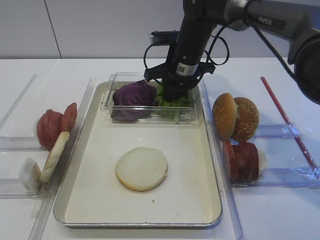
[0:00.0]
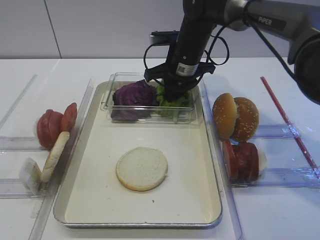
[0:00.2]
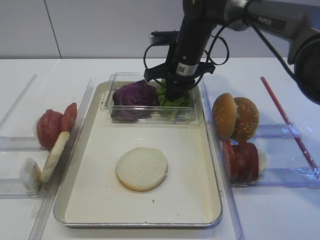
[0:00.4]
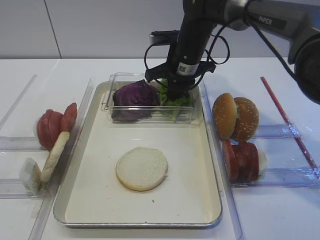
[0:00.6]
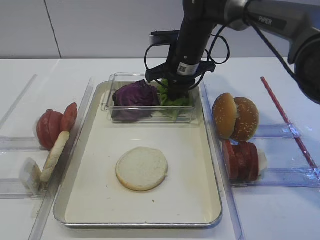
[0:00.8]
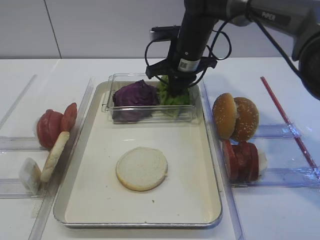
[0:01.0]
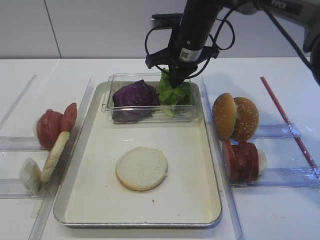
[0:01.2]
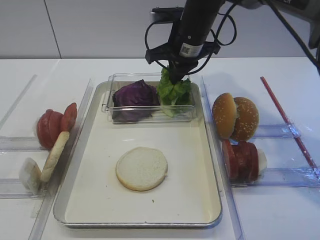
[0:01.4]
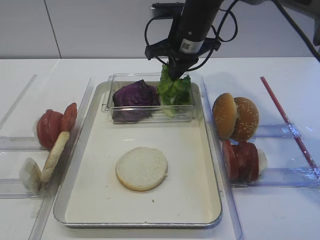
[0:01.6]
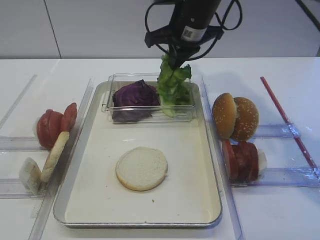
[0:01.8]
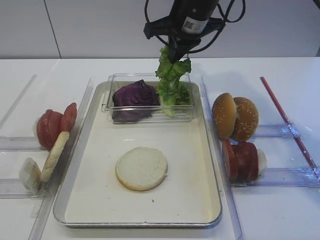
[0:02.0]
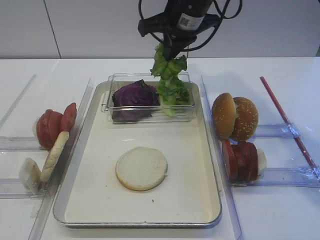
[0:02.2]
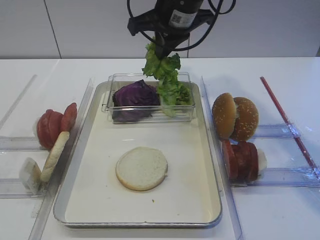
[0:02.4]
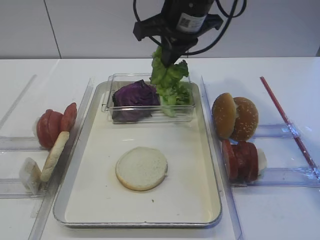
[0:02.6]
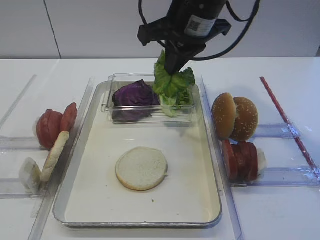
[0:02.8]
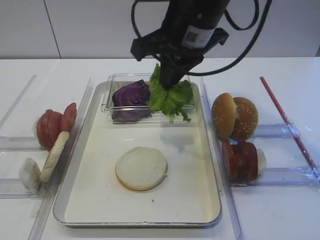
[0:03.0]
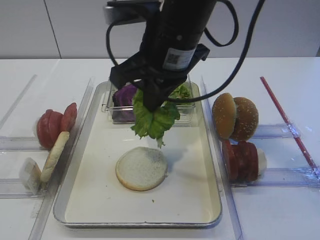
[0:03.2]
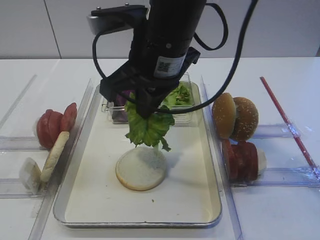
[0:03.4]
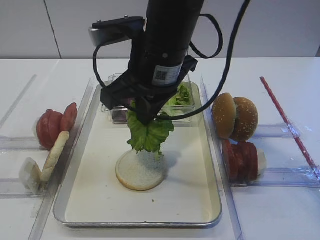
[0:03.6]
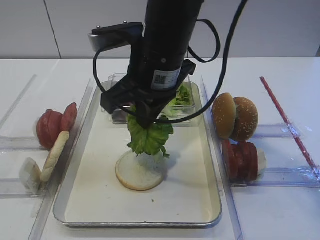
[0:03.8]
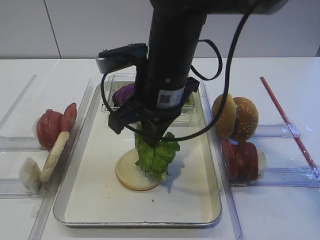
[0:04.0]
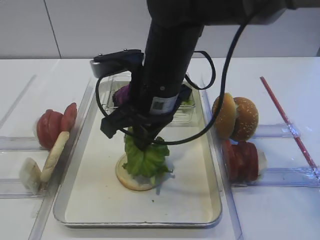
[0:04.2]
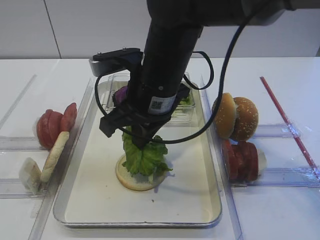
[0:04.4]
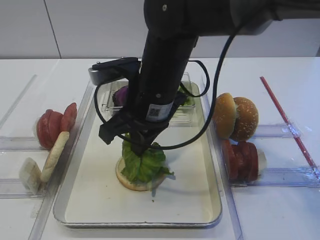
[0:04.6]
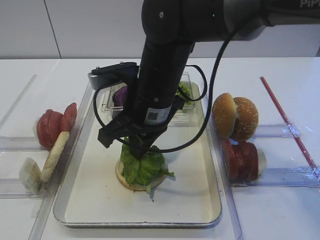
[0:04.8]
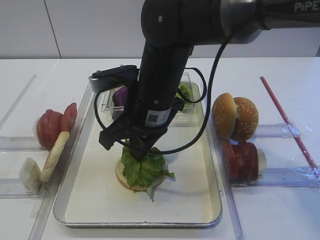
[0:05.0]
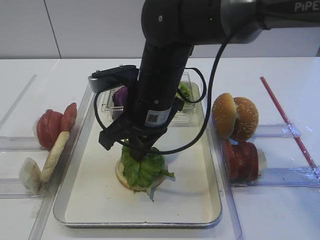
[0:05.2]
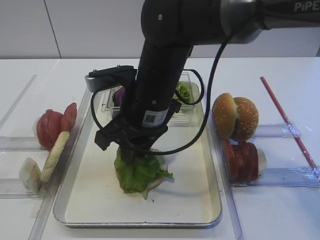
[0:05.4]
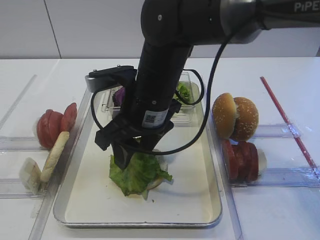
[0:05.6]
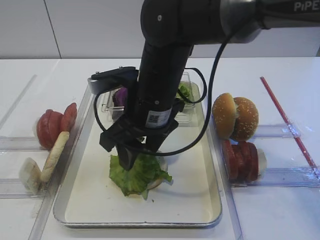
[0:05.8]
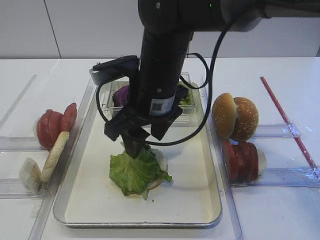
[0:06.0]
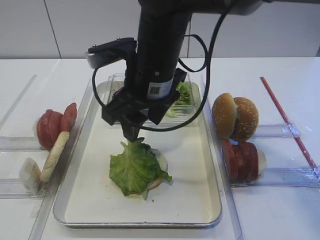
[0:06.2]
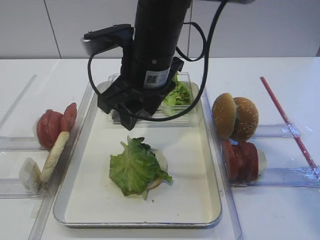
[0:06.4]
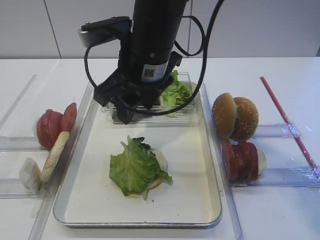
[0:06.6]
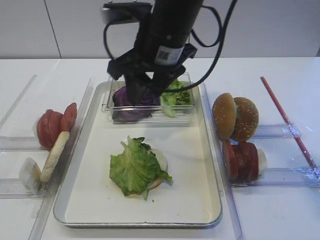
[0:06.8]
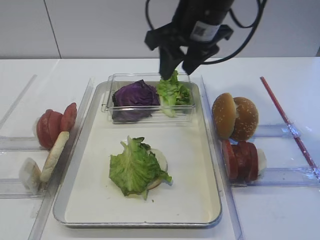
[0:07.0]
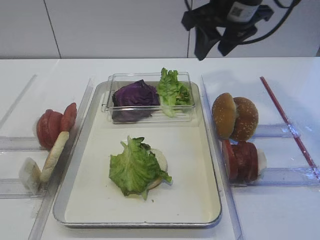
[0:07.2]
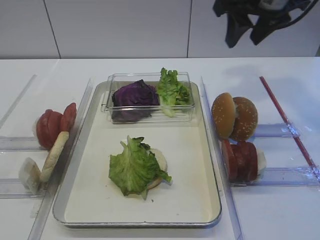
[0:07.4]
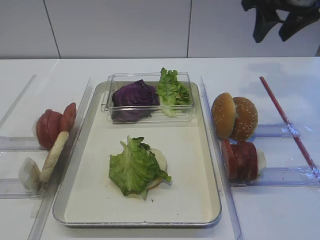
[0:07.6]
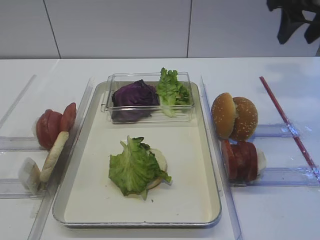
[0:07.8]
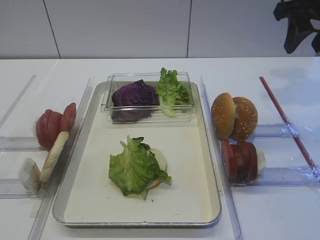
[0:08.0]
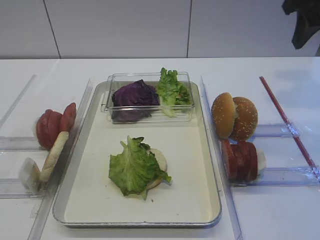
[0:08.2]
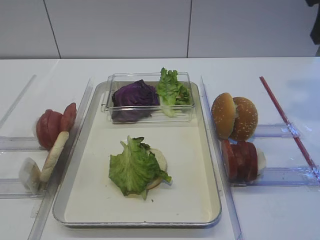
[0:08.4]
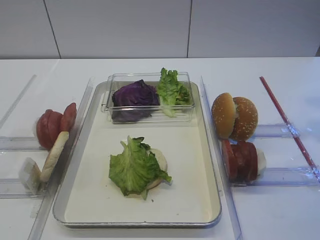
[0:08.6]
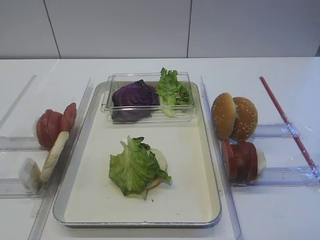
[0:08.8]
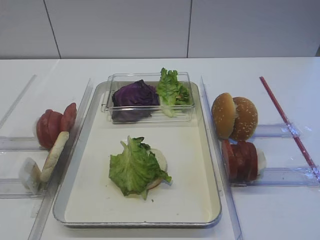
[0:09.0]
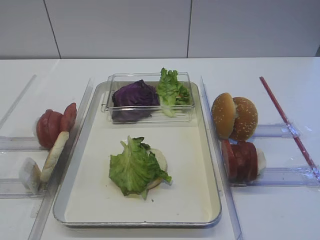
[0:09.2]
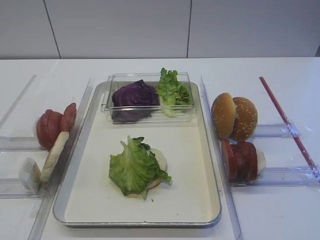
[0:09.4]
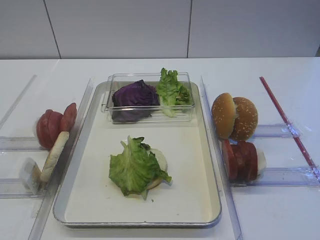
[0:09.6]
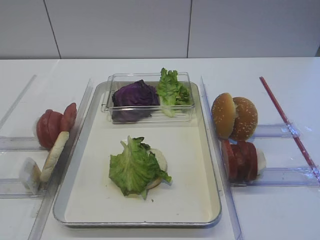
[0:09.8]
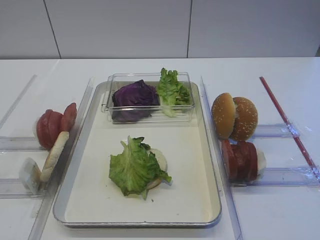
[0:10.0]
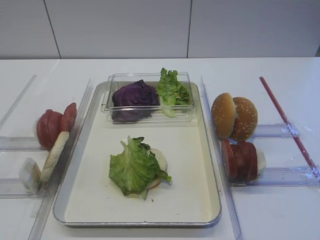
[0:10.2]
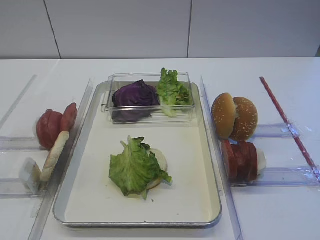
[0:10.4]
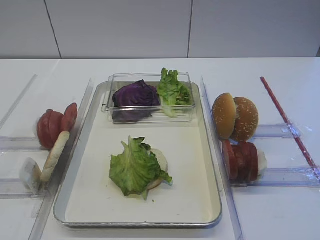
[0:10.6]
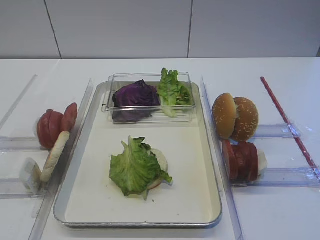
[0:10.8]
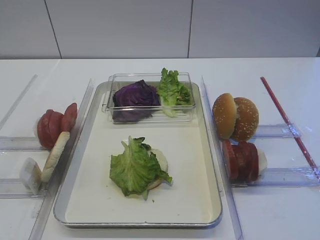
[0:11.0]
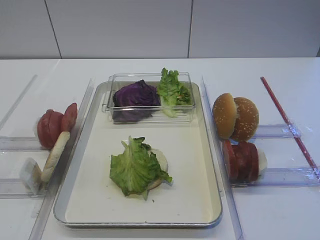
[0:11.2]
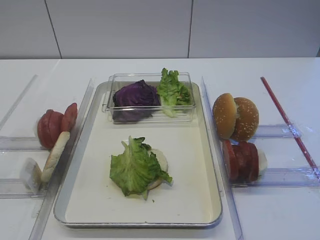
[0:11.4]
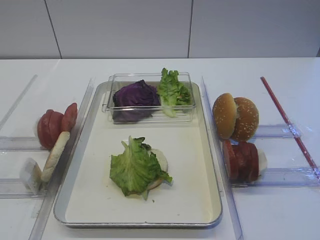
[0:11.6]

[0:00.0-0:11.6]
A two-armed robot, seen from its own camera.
Step, 0:01.8 to 0:06.6: Place the lettuce leaf on the bread slice with the right gripper.
0:00.0 to 0:01.4: The right gripper closes its fingers.
0:01.4 to 0:02.8: The right gripper travels backward and upward by some 10 cm.
0:02.8 to 0:04.4: The right gripper goes approximately 10 cm downward, backward and to the left.
0:04.4 to 0:05.8: The right gripper opens.
0:05.8 to 0:07.2: The right gripper heads to the right, upward and forward, covering about 20 cm.
0:07.2 to 0:08.8: The right gripper goes some 25 cm backward and to the right.
0:10.2 to 0:11.6: The grippers make only small movements.

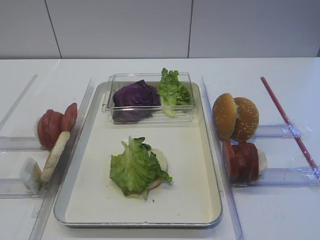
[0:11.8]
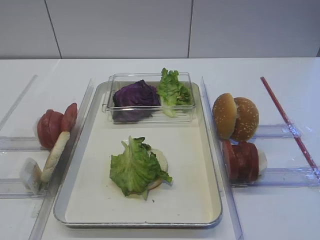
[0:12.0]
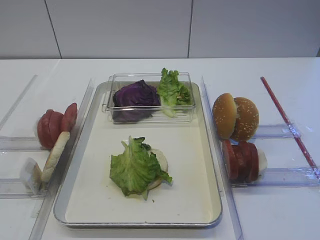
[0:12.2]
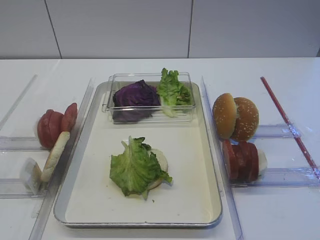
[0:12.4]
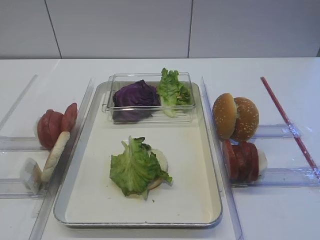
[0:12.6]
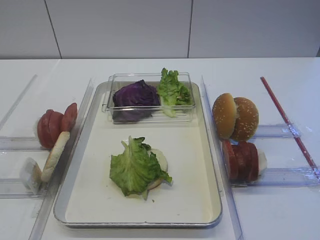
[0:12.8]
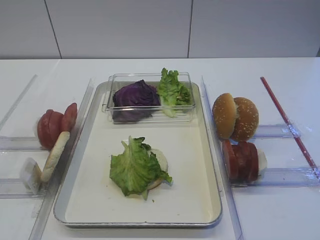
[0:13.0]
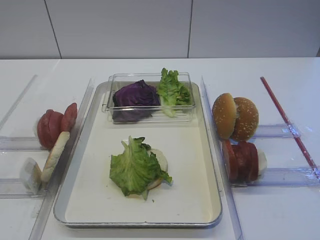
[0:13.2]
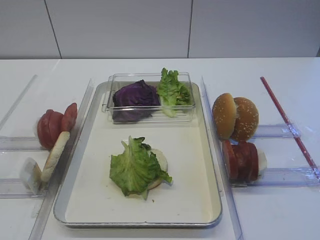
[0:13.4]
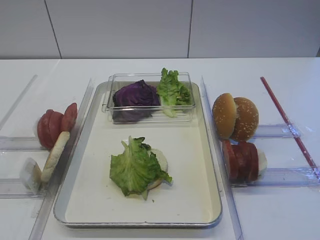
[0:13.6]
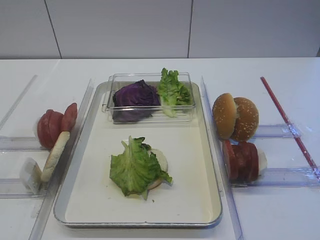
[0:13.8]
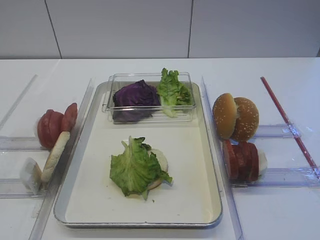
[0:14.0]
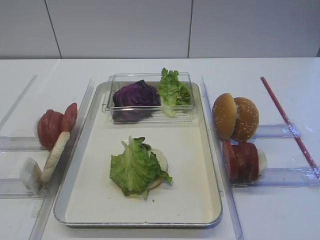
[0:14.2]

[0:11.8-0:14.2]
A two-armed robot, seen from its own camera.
0:11.8 to 0:14.2: The two grippers keep their place.

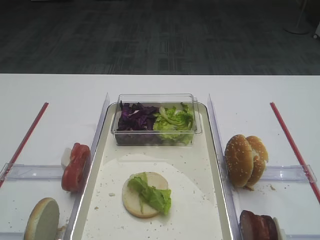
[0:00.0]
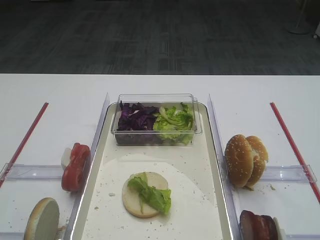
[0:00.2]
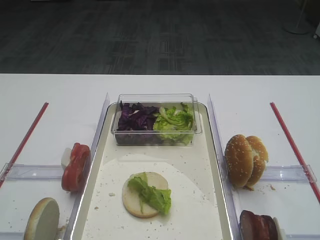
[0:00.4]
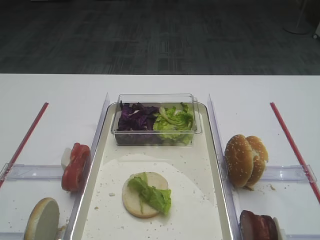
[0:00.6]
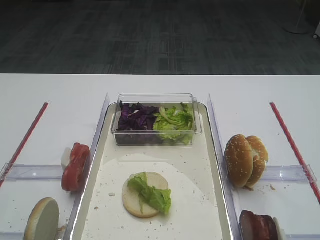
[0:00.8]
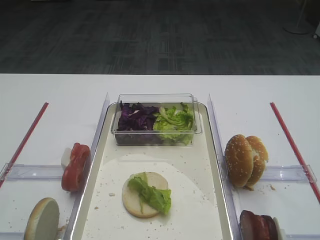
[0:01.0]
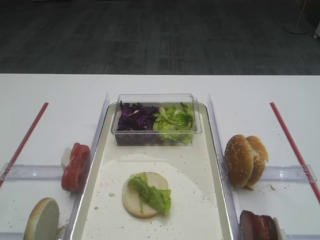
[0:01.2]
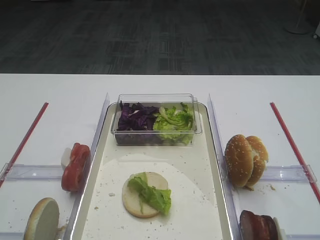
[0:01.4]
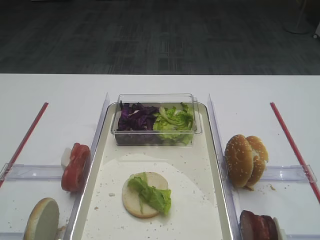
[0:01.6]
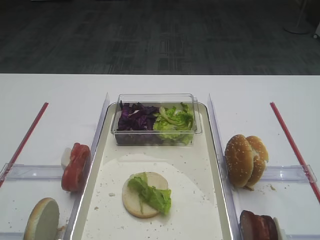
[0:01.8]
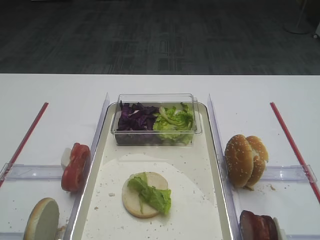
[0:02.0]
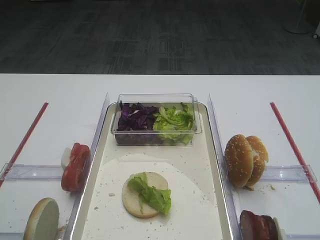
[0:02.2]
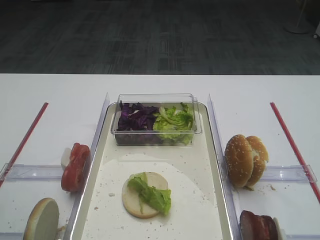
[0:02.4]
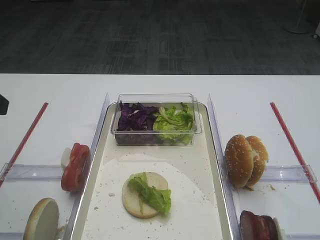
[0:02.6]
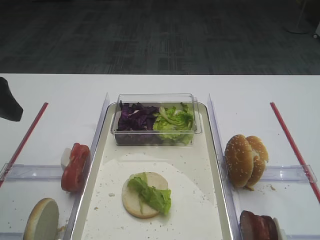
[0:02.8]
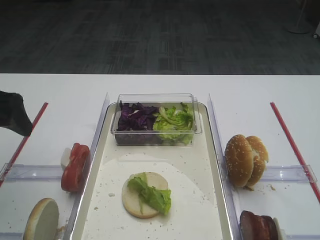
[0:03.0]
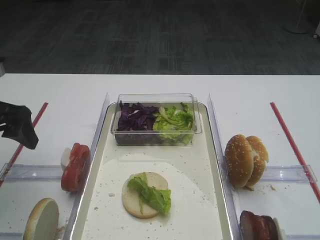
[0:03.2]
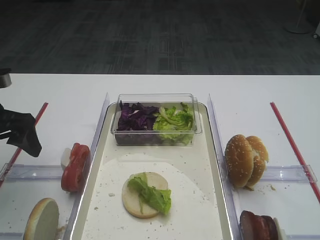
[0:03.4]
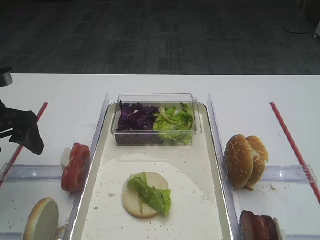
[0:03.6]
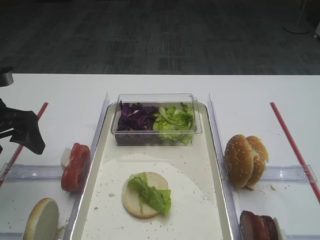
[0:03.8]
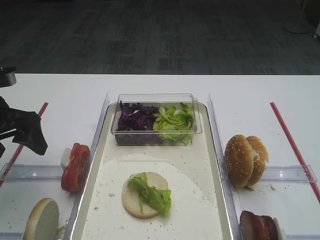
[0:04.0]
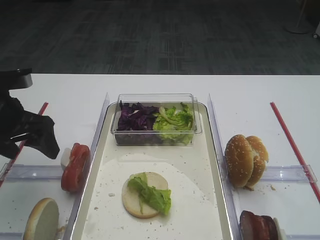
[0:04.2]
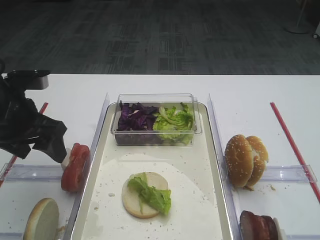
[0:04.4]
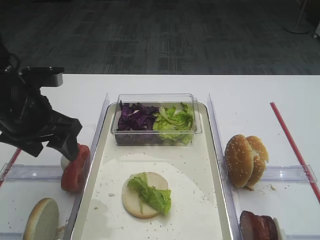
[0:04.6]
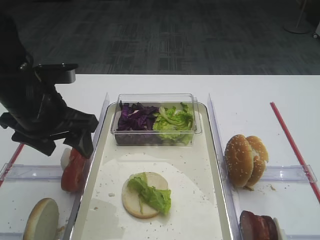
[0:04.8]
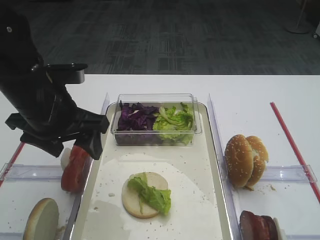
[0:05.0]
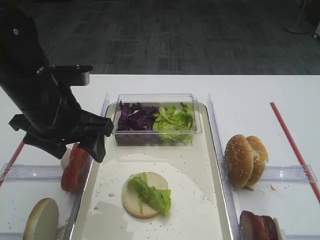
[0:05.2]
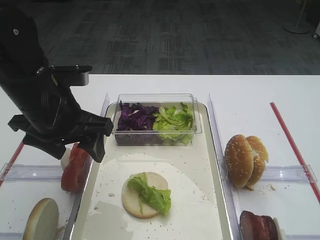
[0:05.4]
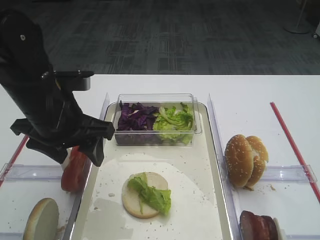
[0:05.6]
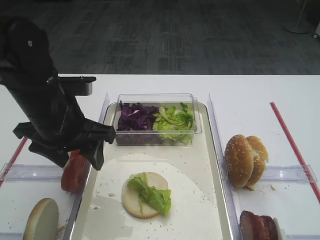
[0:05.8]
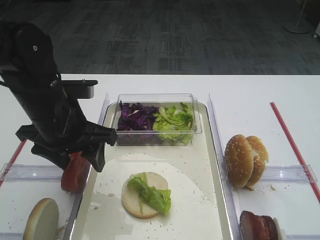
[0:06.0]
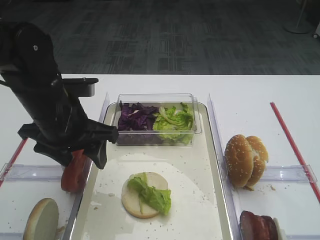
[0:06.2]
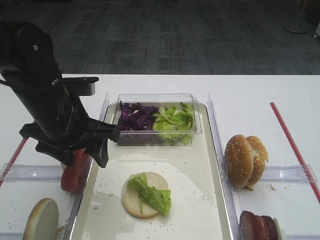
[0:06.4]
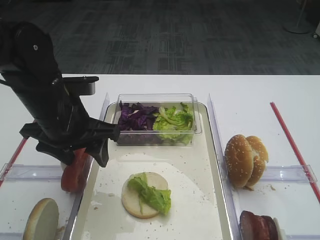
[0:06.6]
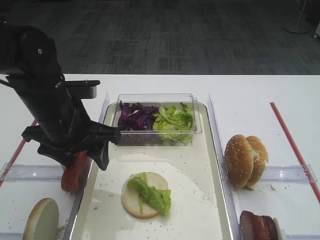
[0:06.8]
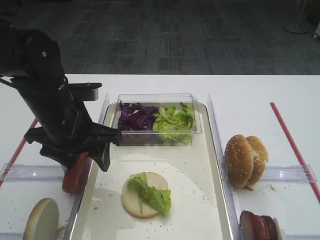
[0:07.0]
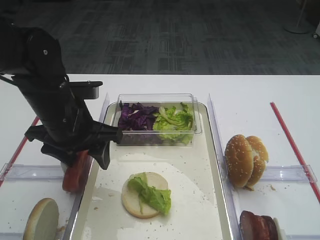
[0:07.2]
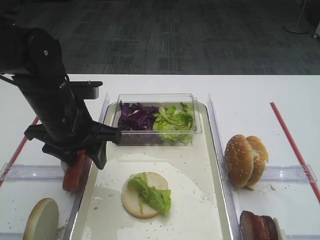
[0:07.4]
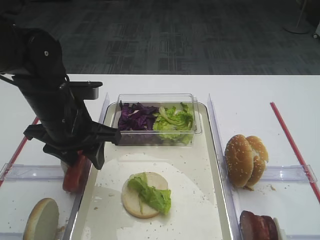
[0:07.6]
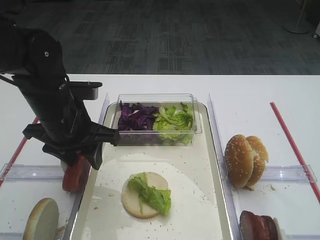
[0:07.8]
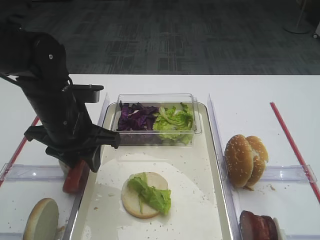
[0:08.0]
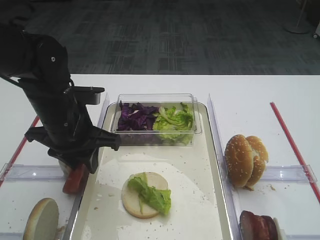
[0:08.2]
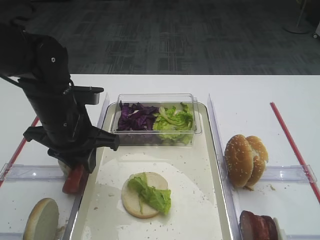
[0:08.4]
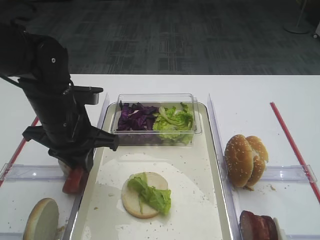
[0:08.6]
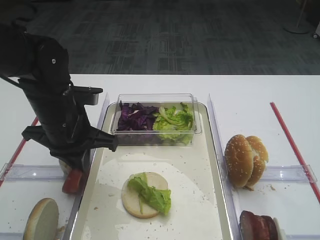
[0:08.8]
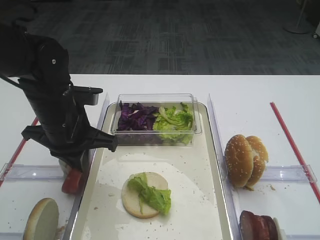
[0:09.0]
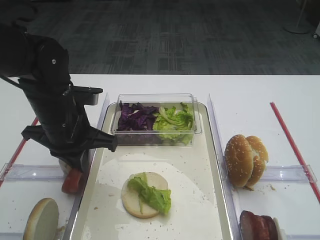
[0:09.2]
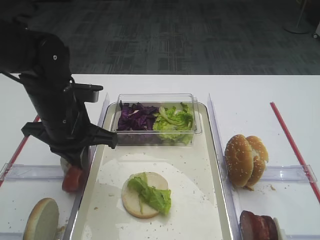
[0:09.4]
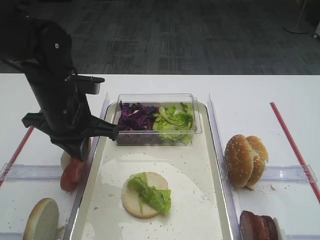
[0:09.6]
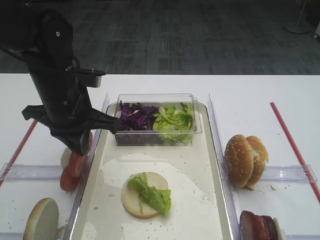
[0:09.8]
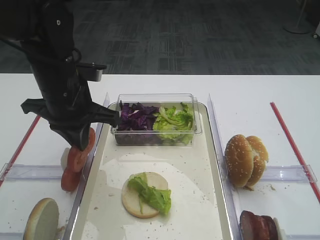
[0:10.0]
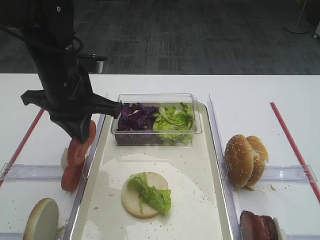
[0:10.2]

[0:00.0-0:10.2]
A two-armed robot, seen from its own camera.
0:01.4 to 0:03.0: The left gripper shifts approximately 25 cm forward.
0:03.0 to 0:04.4: The left gripper moves to the right, roughly 5 cm.
0:04.4 to 0:05.8: The left gripper is displaced to the right by some 10 cm.
0:05.8 to 0:07.2: The grippers make only small movements.
0:07.2 to 0:08.8: The left gripper closes.
0:08.8 to 0:10.2: The left gripper heads upward, covering some 5 cm.
